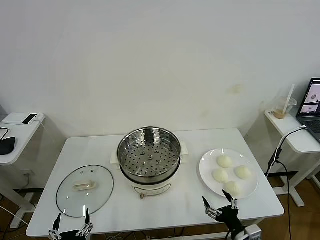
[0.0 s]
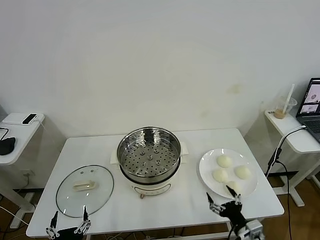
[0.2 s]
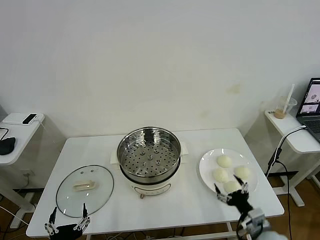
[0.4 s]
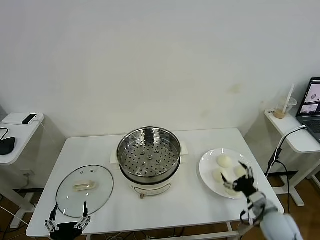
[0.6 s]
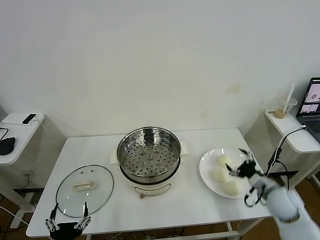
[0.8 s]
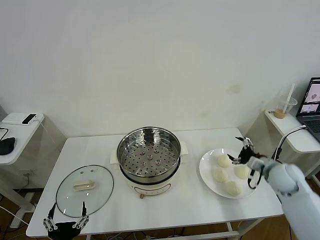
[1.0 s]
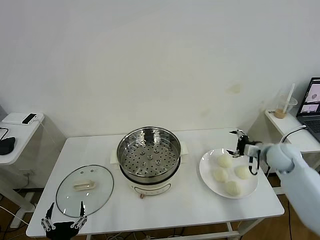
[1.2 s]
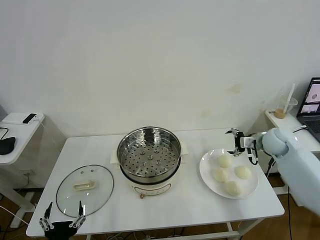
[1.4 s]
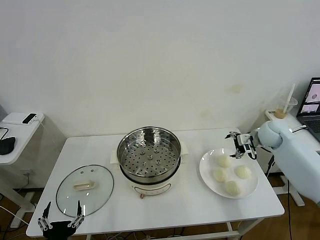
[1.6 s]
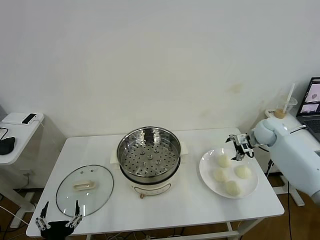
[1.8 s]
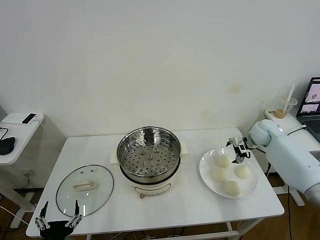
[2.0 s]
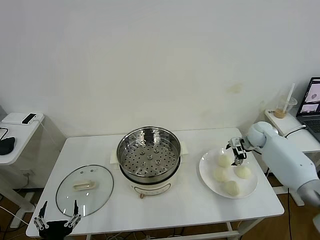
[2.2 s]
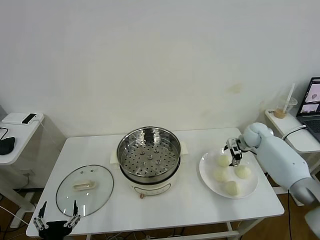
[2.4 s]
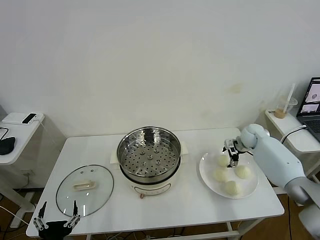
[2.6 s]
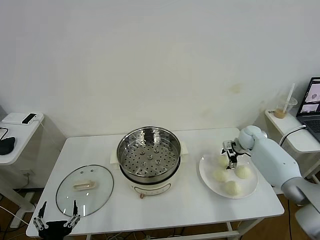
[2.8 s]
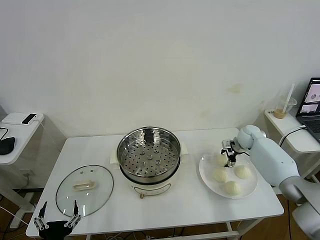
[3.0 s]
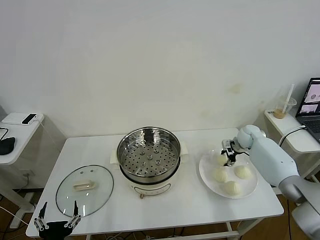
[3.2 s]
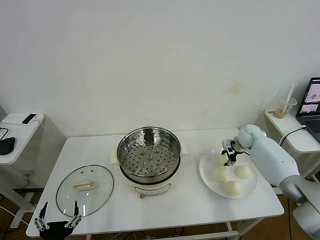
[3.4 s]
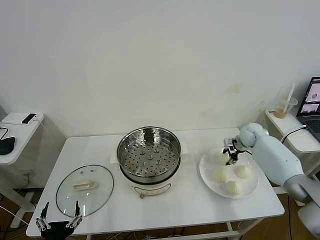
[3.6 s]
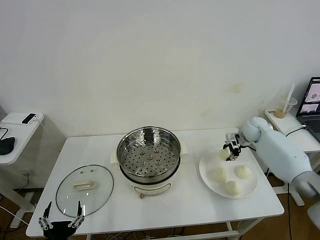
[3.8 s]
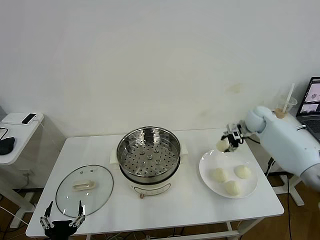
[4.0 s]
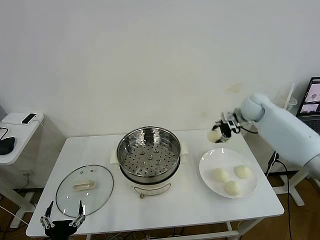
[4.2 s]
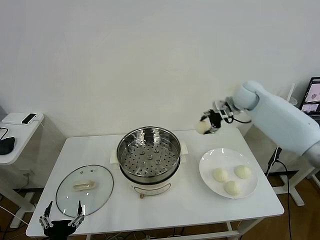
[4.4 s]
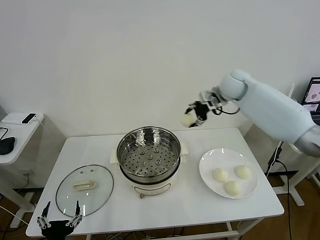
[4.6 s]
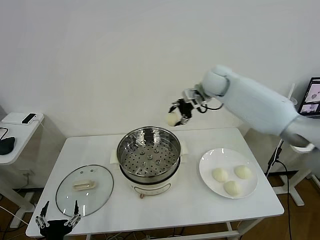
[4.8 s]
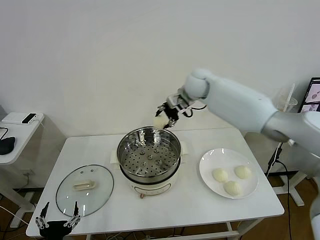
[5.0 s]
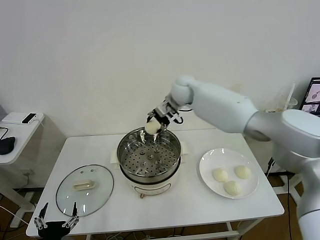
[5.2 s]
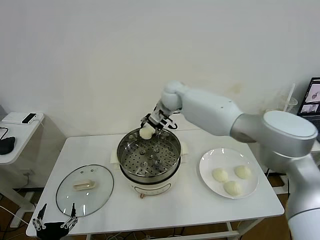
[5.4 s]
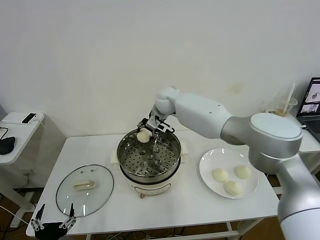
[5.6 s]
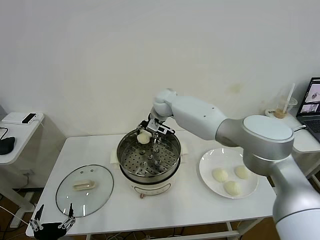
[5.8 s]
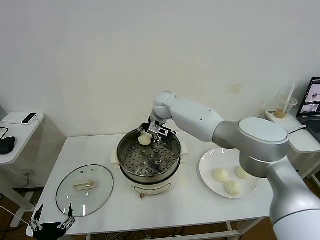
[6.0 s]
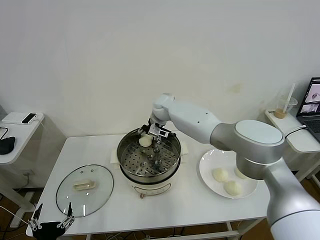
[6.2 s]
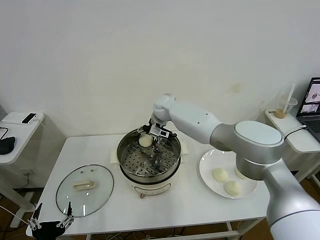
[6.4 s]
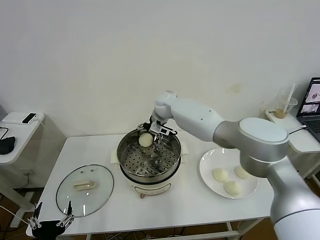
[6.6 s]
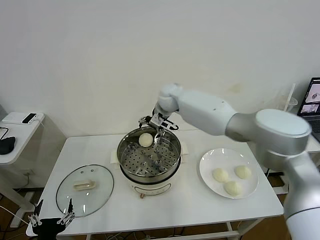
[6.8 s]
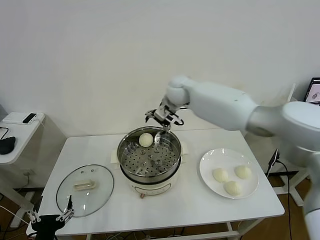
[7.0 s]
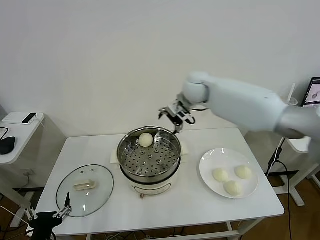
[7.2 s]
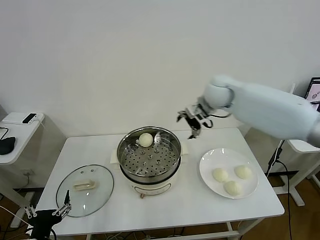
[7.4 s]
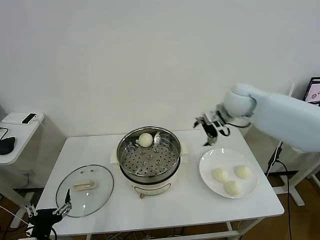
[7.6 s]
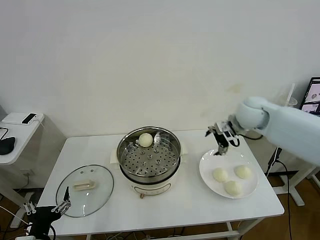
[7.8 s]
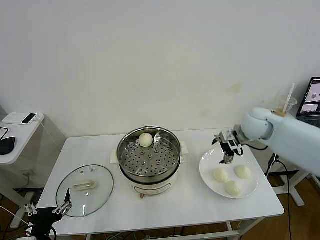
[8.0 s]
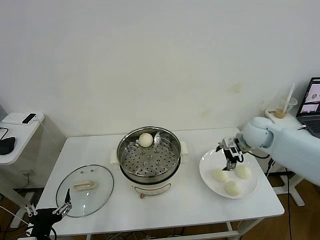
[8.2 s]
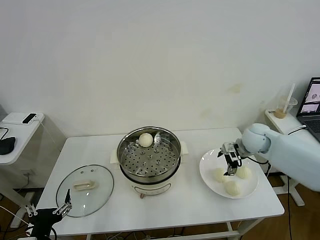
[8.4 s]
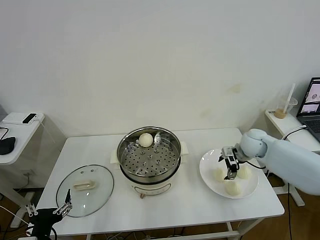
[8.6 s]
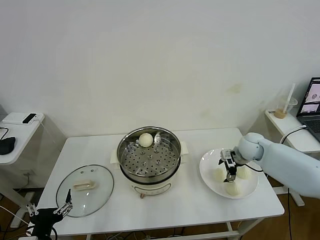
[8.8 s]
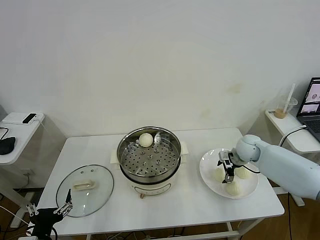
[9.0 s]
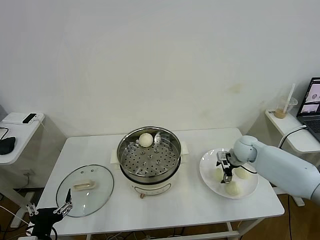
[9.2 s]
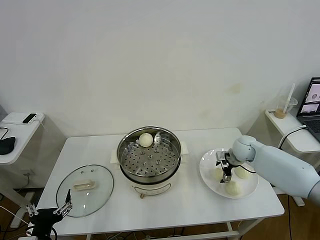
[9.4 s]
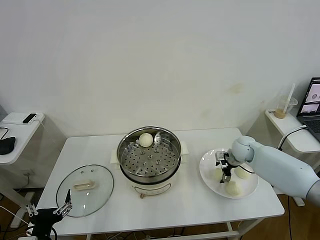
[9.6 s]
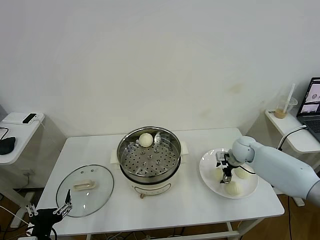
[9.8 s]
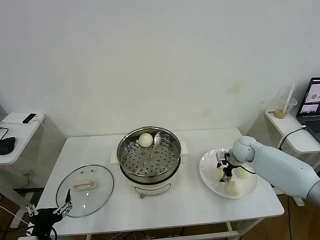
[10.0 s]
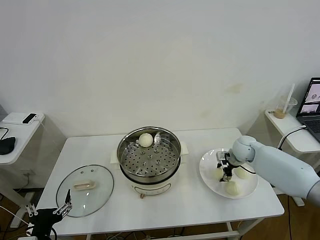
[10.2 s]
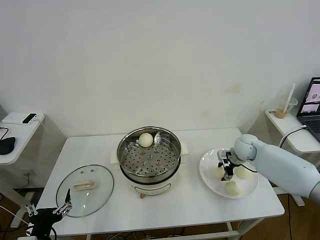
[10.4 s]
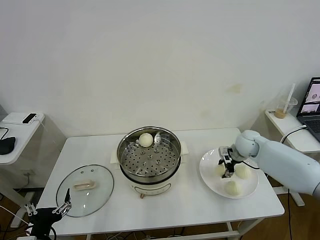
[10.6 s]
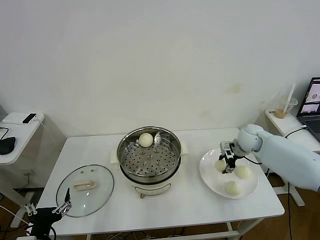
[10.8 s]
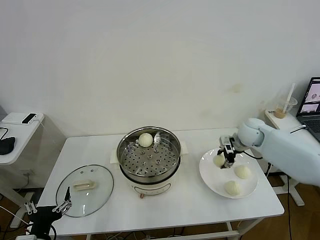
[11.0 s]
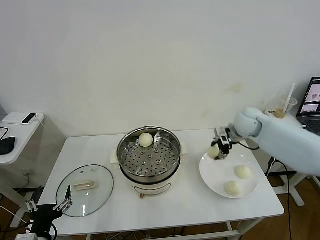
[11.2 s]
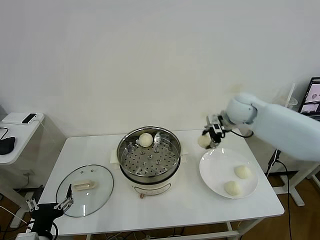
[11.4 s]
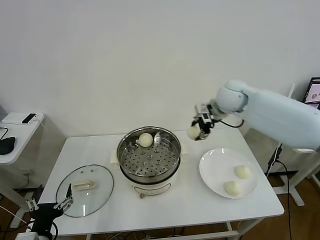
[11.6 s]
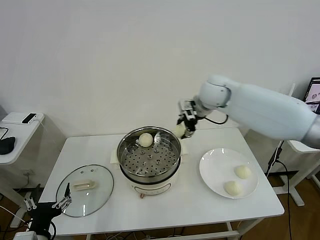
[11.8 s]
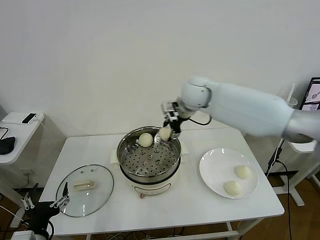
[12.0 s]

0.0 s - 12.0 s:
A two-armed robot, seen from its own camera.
Task of the whole recording: take steamed baozi put them in steamer then cover it.
Step, 0.0 s - 3.2 s: Grasp the baozi in the plate with right gripper.
Step, 3.4 s - 6.6 s: Place the baozi on the steamer with right gripper.
Step, 6.8 s - 10.2 s: Grasp the baozi in the plate with right gripper.
1.6 s - 3.0 s: The right gripper is displaced downward and forward by roughly 10 cm, and closes its fingers.
3.0 s - 4.4 s: The right gripper heads upward and to the left, covering about 25 cm.
4.4 s - 6.0 s: The right gripper moves to the left, about 25 cm.
6.0 s - 7.6 s: The right gripper moves to the right and backward, about 30 cm, and opens.
7.6 s - 9.0 s: The right gripper moves downward, roughly 20 cm.
9.0 s - 10.4 s: The right gripper closes up.
10.4 s - 12.0 s: The right gripper moves to the left and upward, roughly 35 cm.

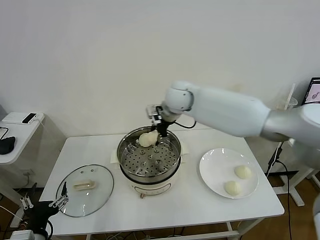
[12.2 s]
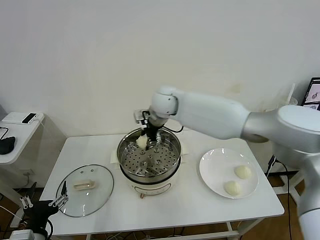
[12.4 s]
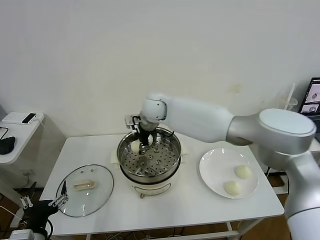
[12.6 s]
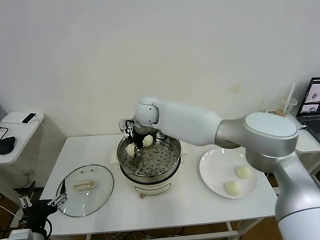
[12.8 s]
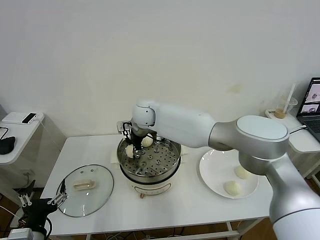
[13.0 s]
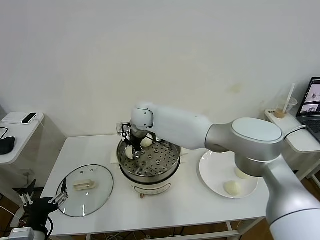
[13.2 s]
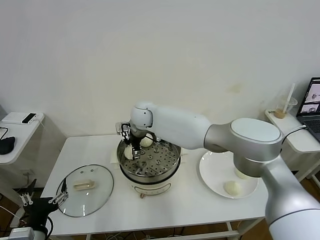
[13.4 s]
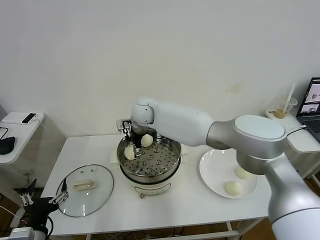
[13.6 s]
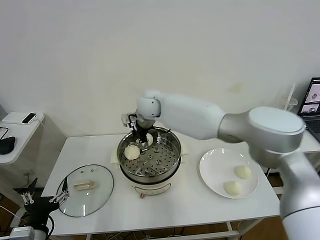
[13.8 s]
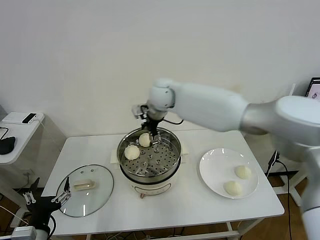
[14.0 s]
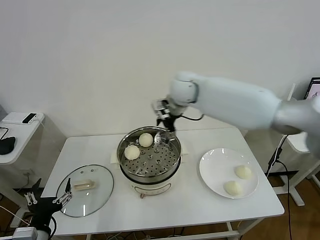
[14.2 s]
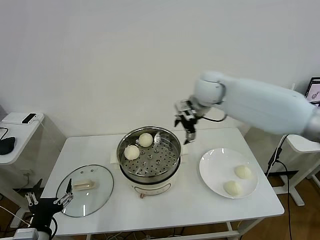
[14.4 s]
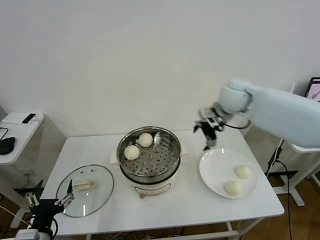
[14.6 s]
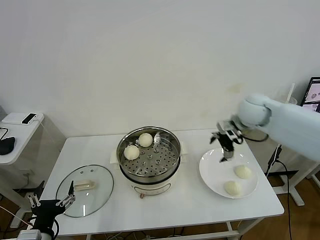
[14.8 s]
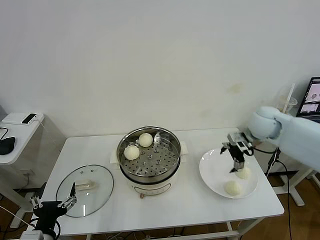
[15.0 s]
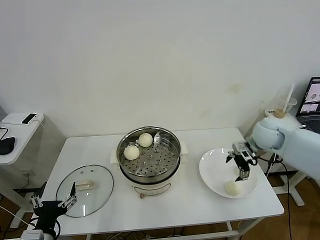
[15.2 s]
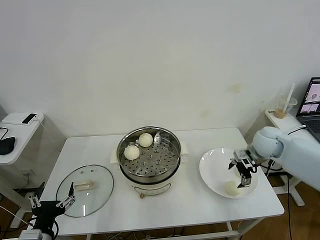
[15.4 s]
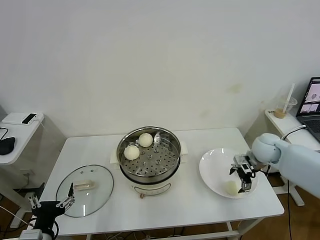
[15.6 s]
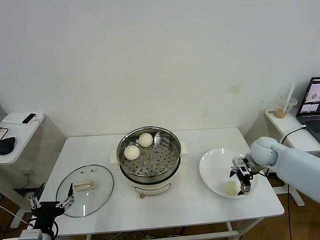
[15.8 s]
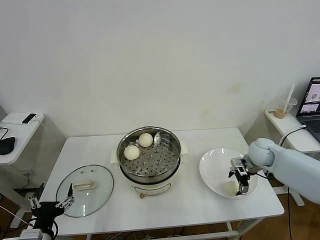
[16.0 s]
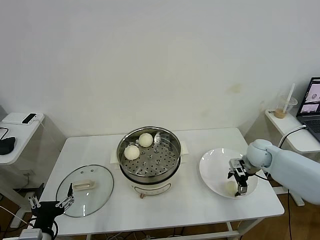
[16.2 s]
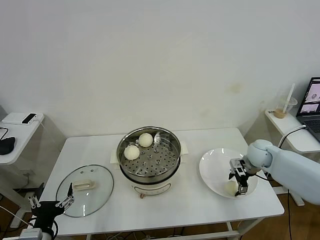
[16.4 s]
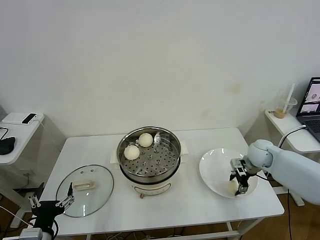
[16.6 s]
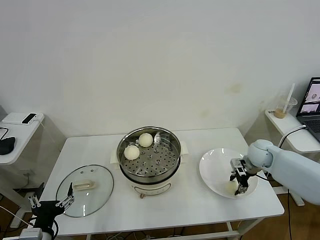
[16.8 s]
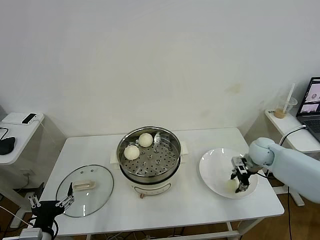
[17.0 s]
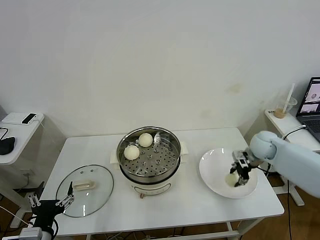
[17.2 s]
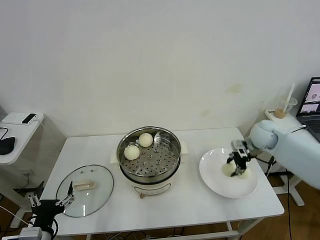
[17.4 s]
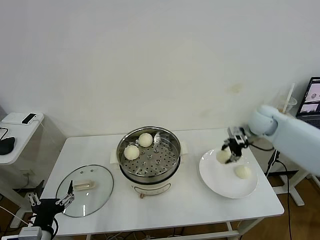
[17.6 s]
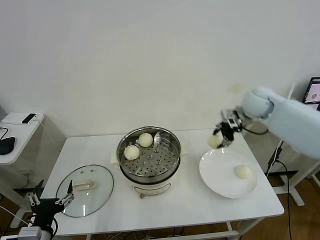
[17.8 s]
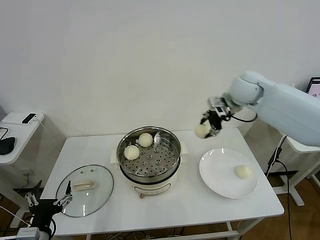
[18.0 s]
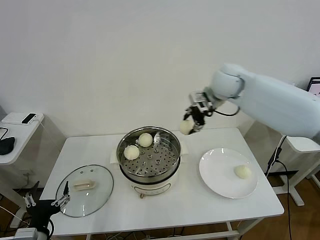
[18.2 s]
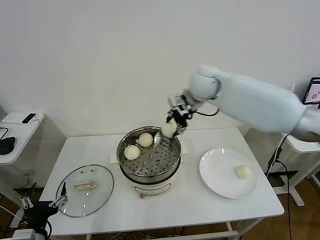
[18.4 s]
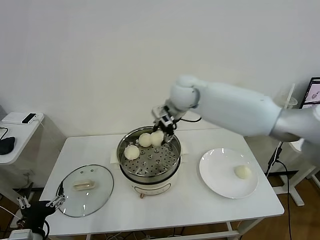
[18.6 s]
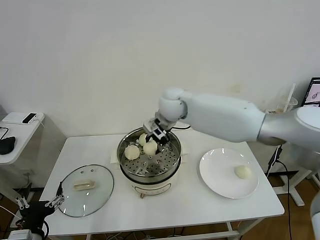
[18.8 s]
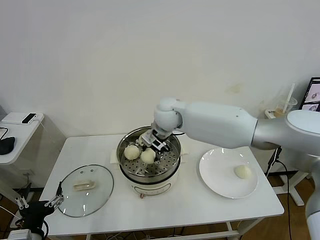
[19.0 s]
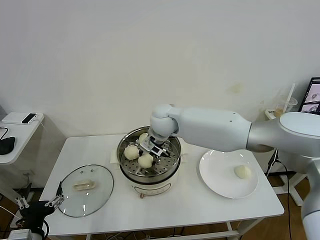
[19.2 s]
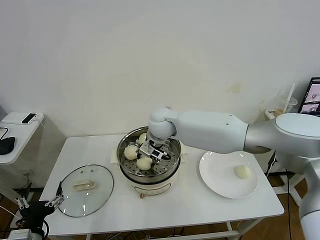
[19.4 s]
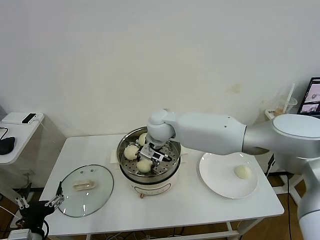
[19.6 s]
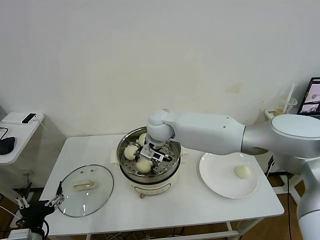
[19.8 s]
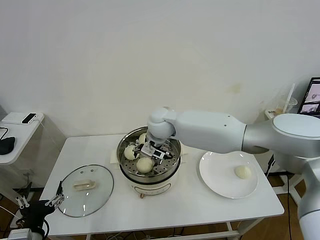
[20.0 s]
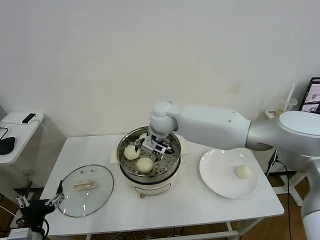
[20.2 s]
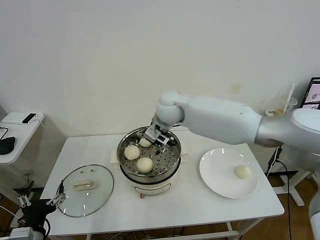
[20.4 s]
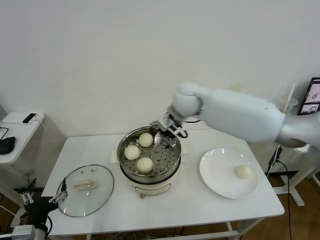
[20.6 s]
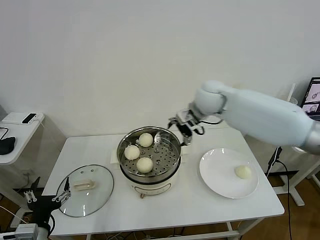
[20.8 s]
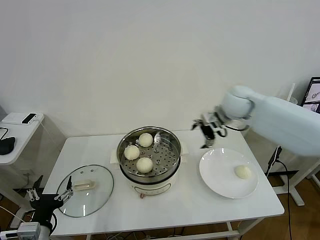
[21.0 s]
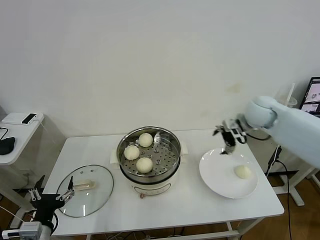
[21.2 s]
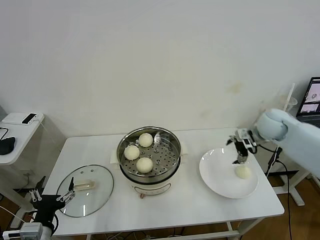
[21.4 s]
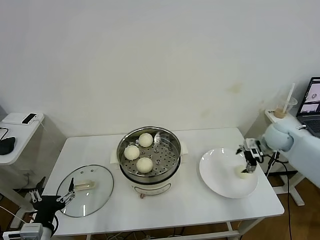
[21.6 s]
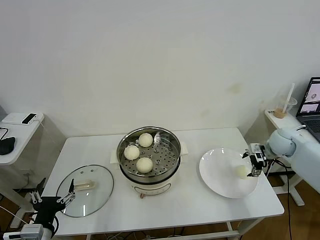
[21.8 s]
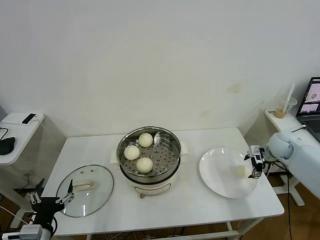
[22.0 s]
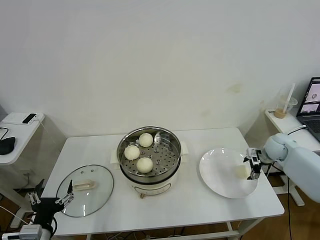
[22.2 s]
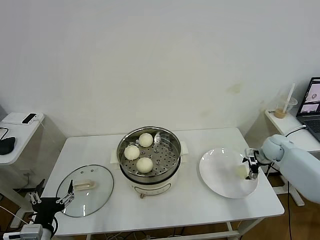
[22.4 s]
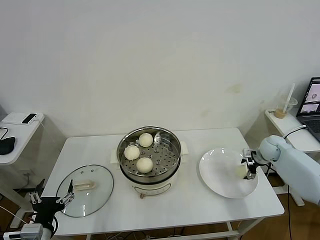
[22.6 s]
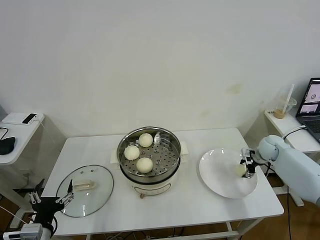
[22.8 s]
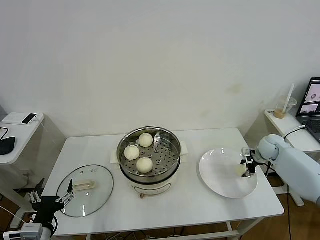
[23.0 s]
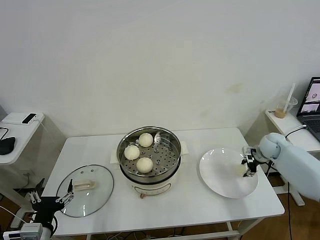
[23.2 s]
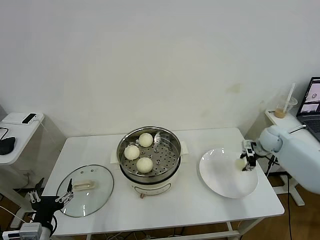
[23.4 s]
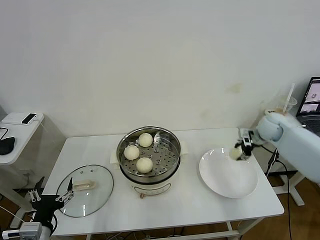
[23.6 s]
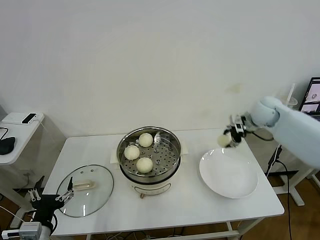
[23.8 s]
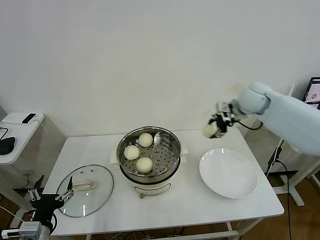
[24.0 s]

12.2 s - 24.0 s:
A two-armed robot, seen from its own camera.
Task of the whole recording: take steamed baozi put them in steamer then cover it.
Step, 13.8 s - 16.8 s: Grasp the baozi in the plate with right gripper.
Step, 17.2 s - 20.2 s: Place the baozi on the steamer with right gripper.
Step, 20.4 s - 23.2 s: Grasp the baozi in the plate with right gripper.
12.2 s - 13.6 s: The right gripper moves to the left, about 10 cm, and opens.
13.6 s - 15.2 s: The right gripper moves to the right, about 40 cm.
15.2 s - 16.6 s: The right gripper is displaced downward by some 10 cm, and closes.
16.6 s - 18.2 s: The right gripper travels upward and to the left by about 35 cm.
18.2 s - 19.6 s: The right gripper moves to the left and downward, some 20 cm.
19.6 s - 21.0 s: The right gripper moves to the right, about 25 cm, and opens up.
21.0 s - 22.6 s: The right gripper moves downward and to the right, roughly 30 cm.
22.6 s - 24.0 s: The right gripper travels upward and to the left by about 25 cm, and closes up.
